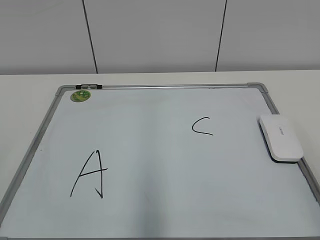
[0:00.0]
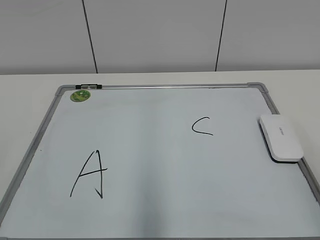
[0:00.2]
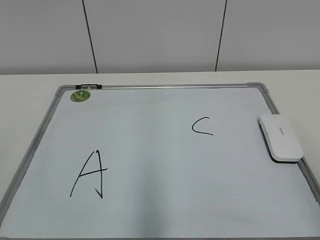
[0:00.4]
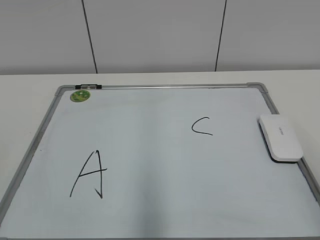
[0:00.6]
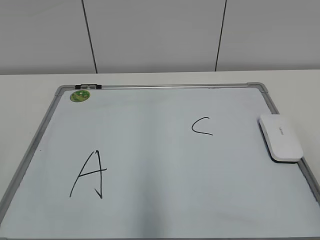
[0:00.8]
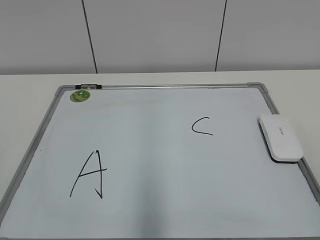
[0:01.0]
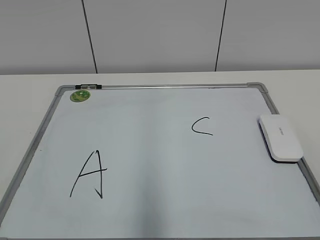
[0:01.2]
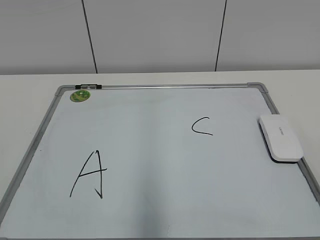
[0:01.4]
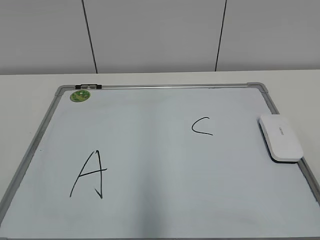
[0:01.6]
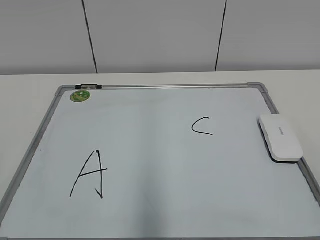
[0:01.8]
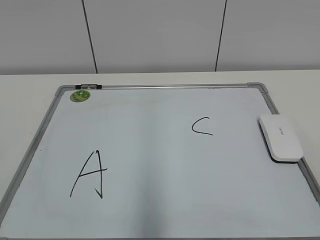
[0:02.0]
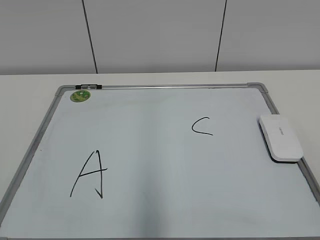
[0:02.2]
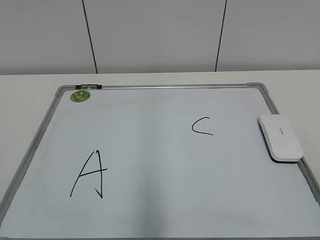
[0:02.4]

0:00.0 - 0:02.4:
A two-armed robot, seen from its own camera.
Task of the whole recording: pick up the eraser on the blackboard and erase the letter "B".
0:01.2 - 0:02.4: The two grippers keep their place.
